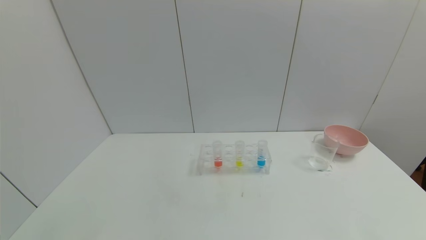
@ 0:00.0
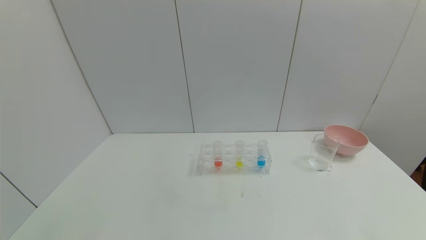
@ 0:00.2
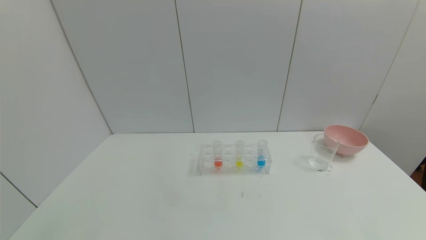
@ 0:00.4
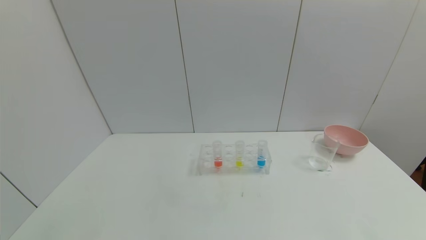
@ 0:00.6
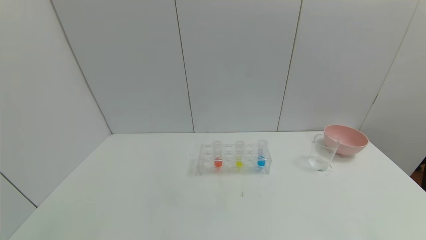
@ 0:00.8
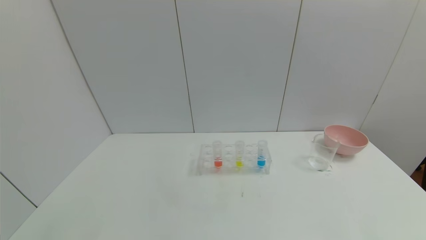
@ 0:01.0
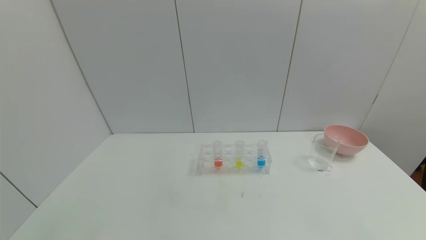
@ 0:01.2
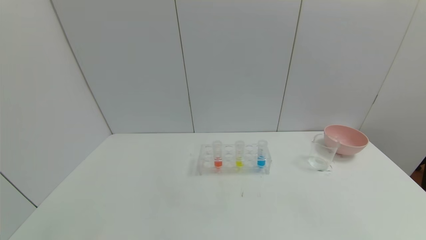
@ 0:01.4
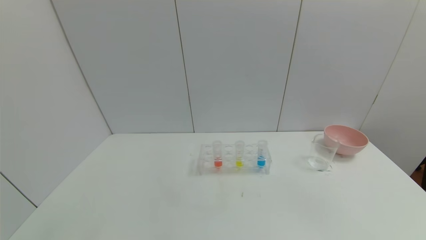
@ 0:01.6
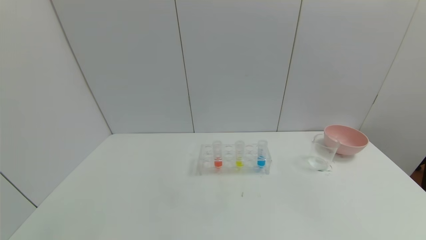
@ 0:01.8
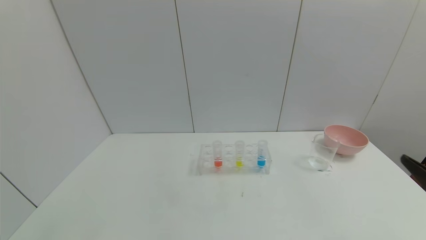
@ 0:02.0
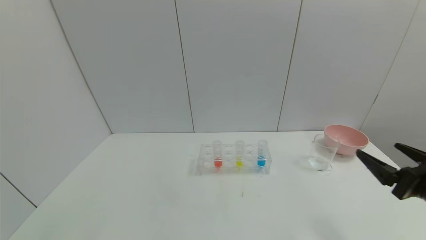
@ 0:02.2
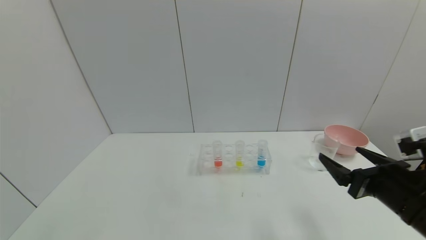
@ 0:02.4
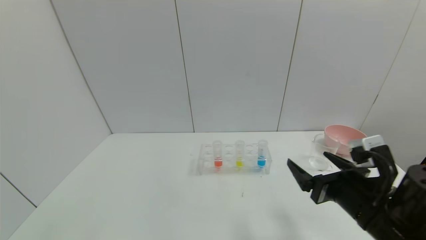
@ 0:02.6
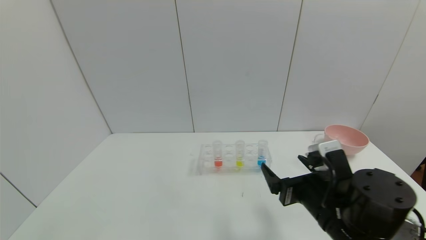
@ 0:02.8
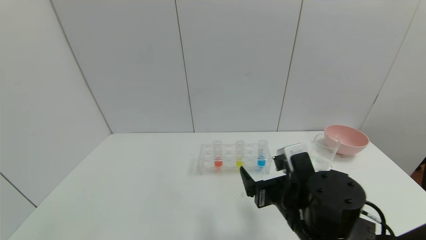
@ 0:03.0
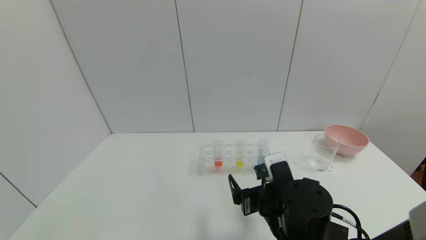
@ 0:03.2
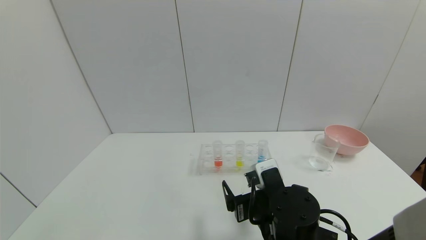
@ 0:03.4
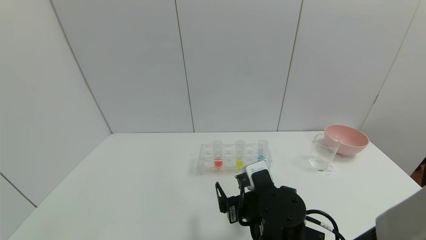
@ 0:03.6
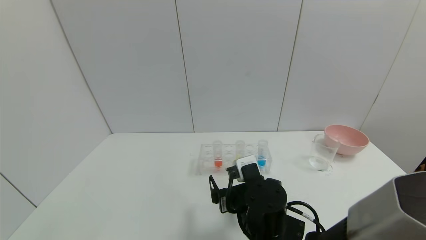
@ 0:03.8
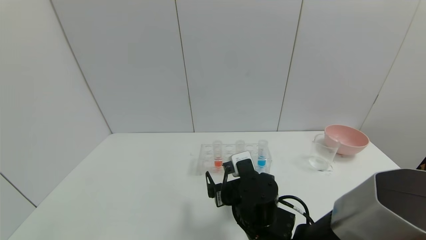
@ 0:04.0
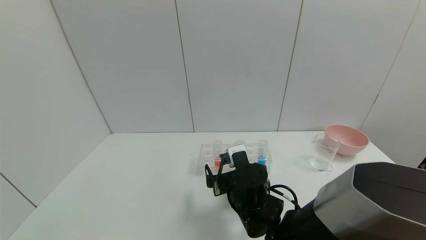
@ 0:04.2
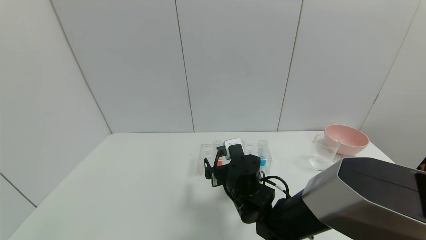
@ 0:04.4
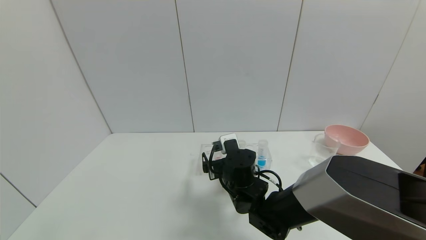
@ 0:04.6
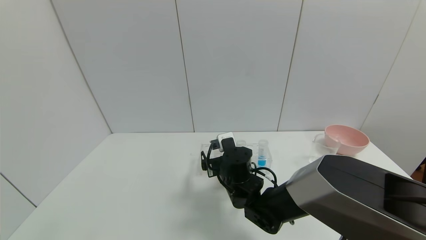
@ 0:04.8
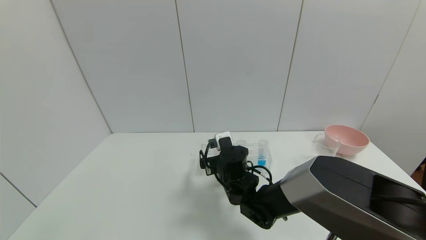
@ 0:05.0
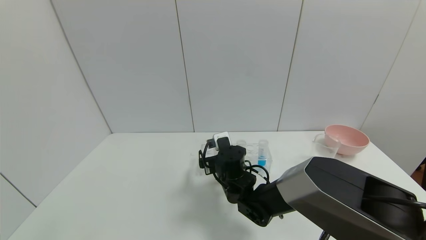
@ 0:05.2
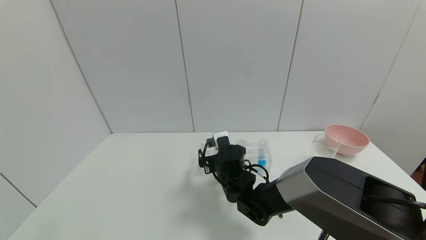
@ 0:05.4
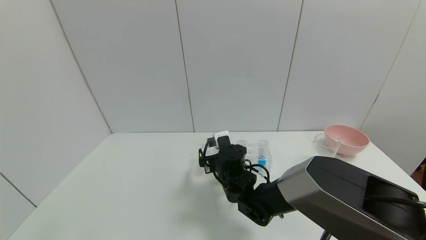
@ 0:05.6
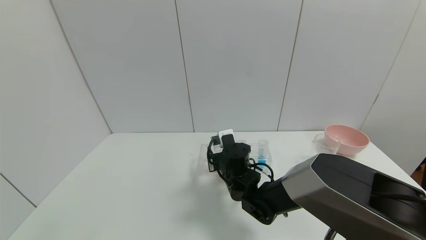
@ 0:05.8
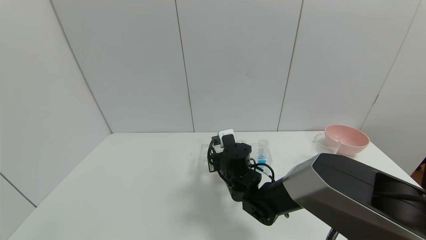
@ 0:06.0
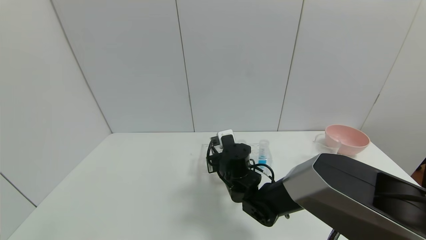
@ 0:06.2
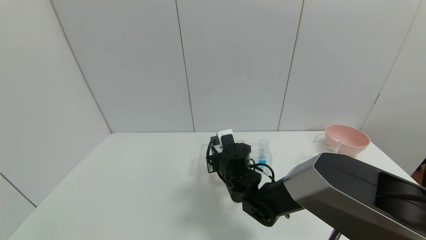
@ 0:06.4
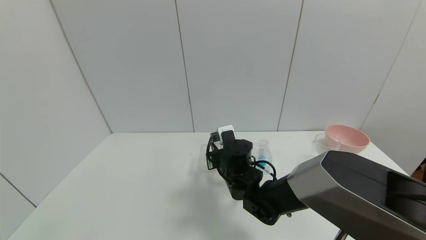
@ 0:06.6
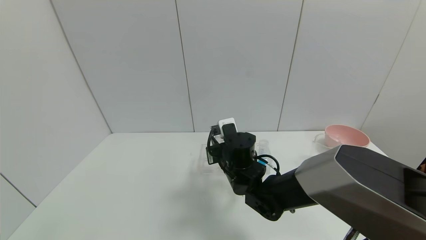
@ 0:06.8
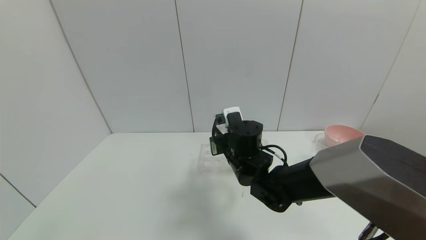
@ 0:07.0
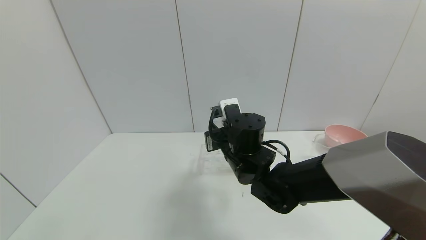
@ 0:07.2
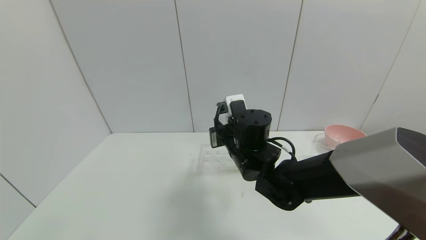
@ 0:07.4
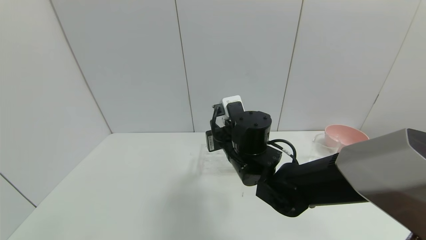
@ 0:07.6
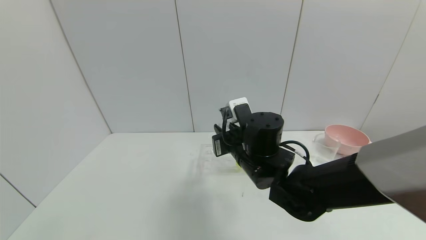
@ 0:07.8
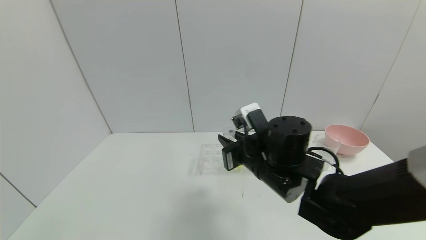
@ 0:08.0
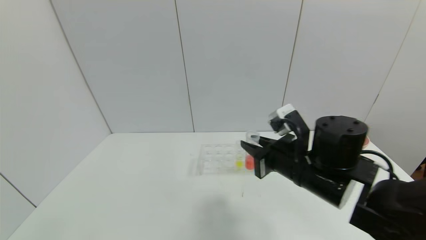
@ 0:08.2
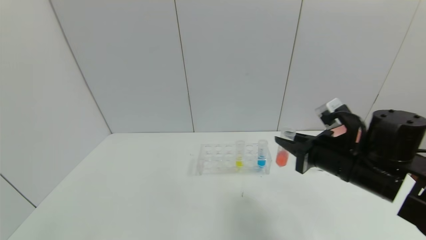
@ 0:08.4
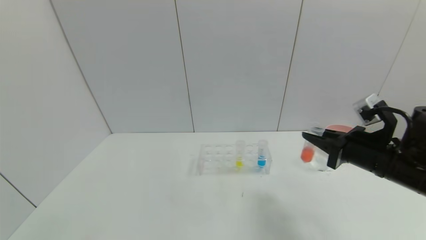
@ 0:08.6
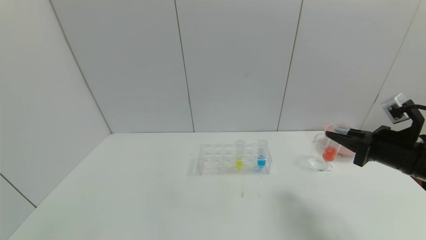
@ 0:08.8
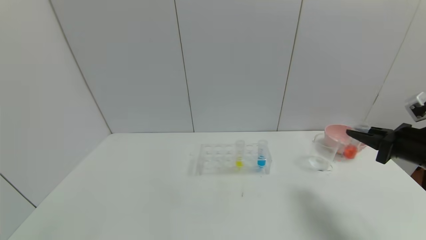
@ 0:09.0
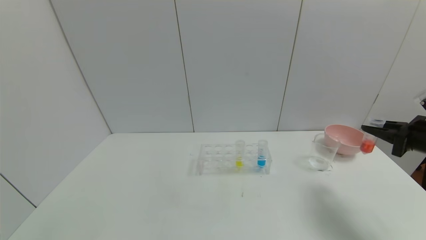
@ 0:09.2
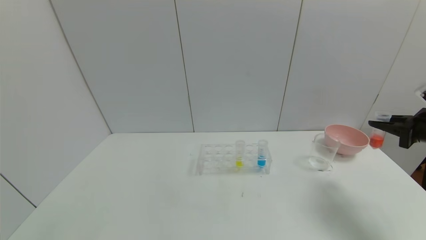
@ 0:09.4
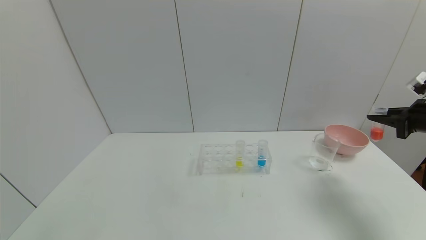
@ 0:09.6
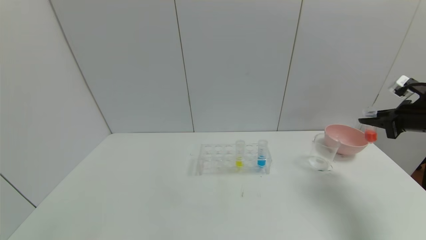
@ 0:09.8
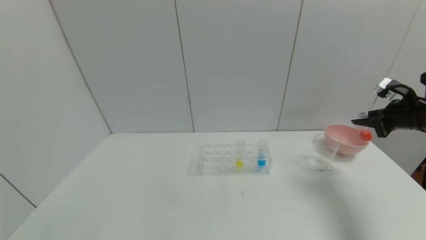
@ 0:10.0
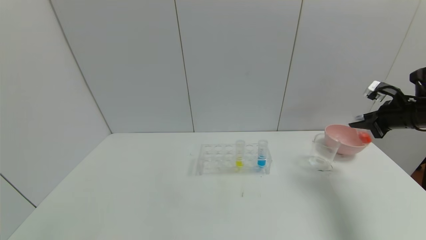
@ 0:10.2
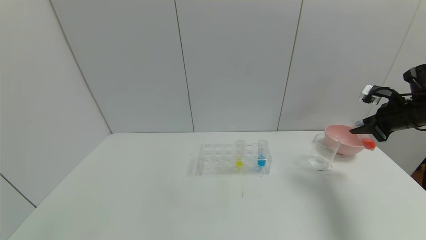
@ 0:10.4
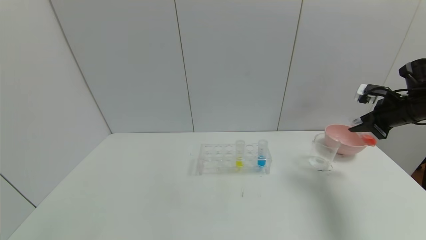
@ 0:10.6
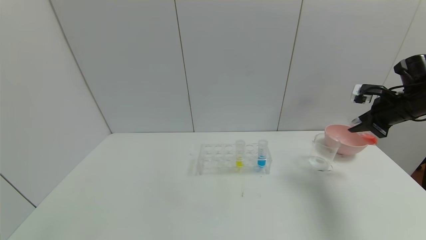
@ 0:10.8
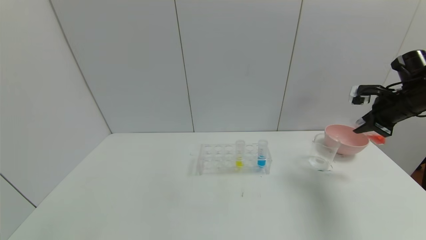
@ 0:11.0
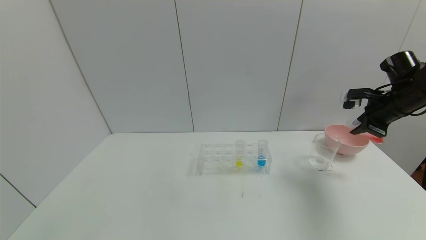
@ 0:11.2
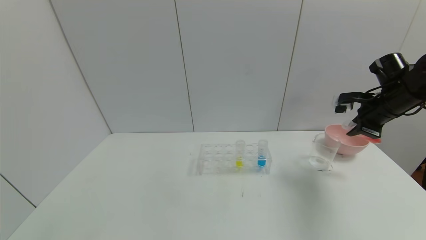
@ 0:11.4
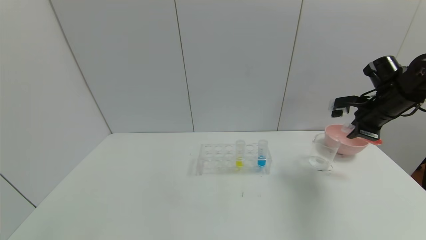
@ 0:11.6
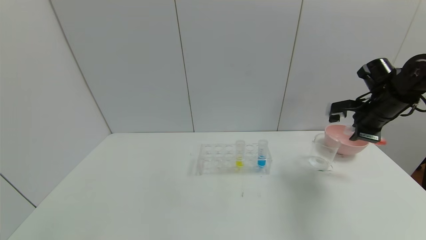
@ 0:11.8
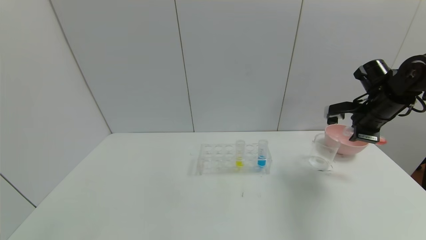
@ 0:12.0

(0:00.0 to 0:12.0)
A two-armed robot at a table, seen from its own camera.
Task of the whole recording: pick up the test tube with red pigment and the test tube with blue pigment by grippers and pour them into the container.
Step, 0:00.0 - 0:09.8: Pick up the test tube containing the red reagent with right gripper.
0:01.6 - 0:03.0: The right gripper heads to the left and forward, covering approximately 30 cm.
0:03.0 - 0:04.4: The right gripper heads forward, to the left and downward, covering roughly 15 cm.
0:04.4 - 0:06.0: The right gripper shifts by about 5 cm, and closes.
0:06.0 - 0:07.6: The right gripper is displaced upward by about 10 cm.
0:07.6 - 0:09.0: The right gripper shifts approximately 35 cm to the right.
0:09.0 - 0:10.4: The right gripper goes about 10 cm forward.
0:10.4 - 0:12.0: The right gripper goes approximately 5 cm to the left.

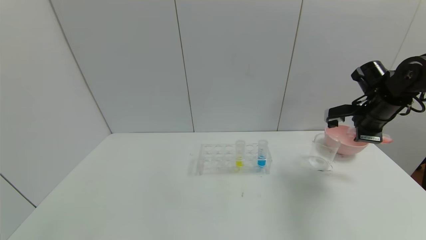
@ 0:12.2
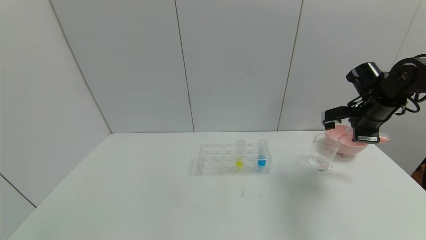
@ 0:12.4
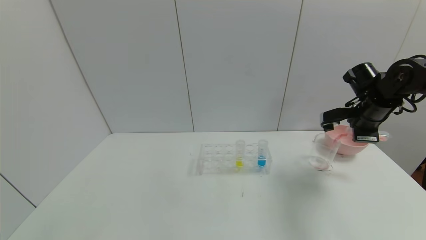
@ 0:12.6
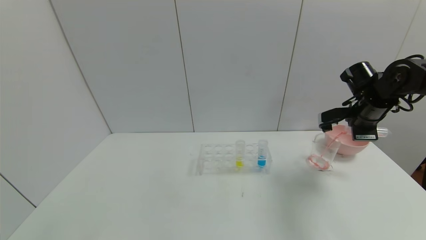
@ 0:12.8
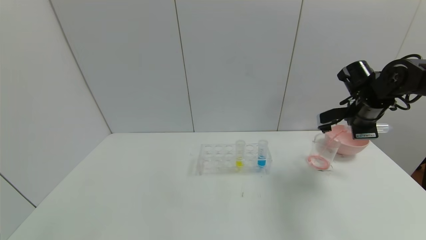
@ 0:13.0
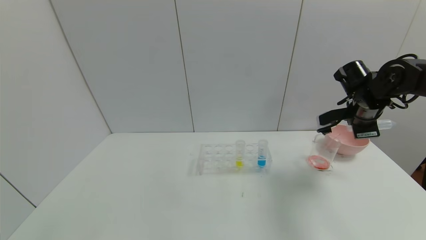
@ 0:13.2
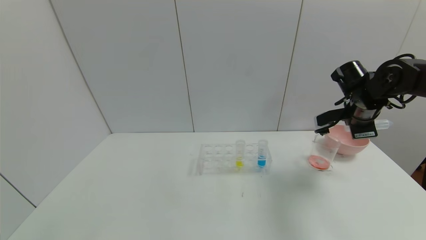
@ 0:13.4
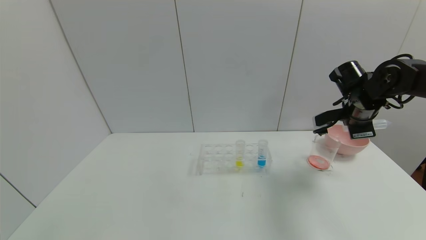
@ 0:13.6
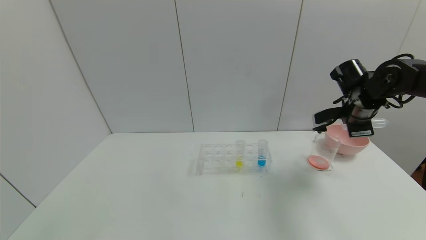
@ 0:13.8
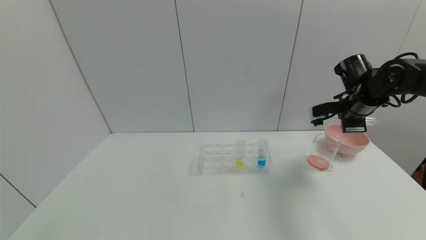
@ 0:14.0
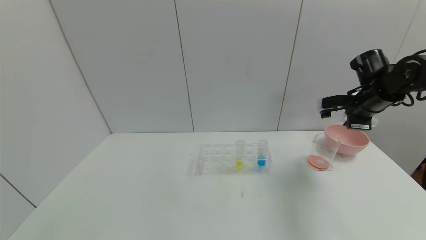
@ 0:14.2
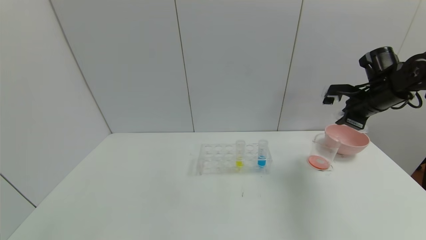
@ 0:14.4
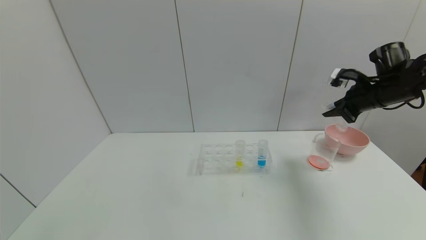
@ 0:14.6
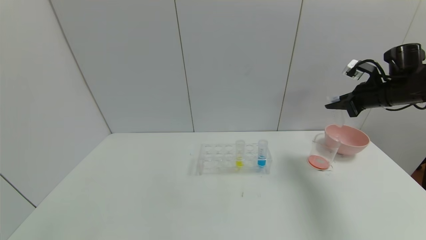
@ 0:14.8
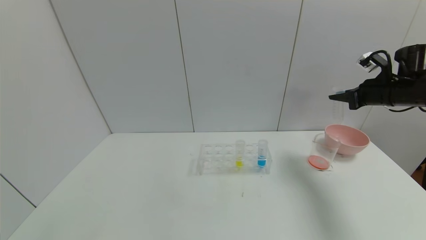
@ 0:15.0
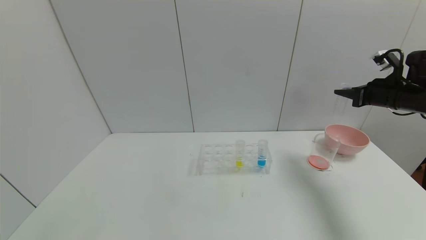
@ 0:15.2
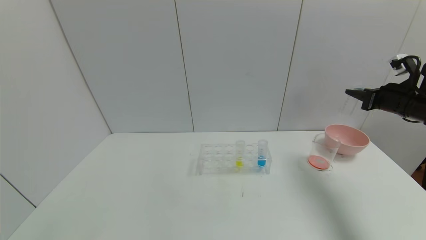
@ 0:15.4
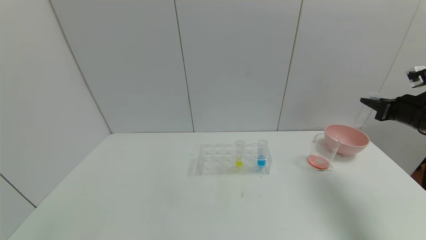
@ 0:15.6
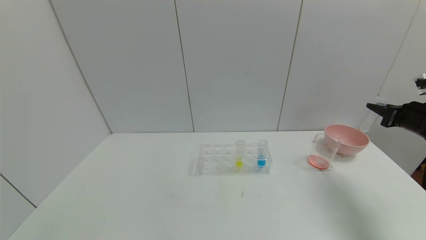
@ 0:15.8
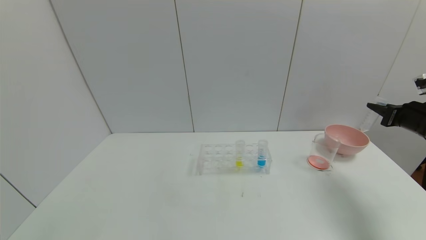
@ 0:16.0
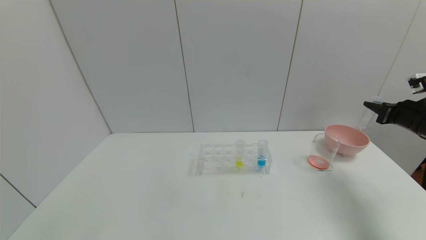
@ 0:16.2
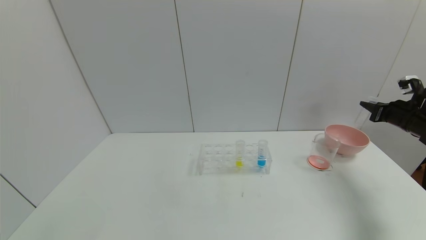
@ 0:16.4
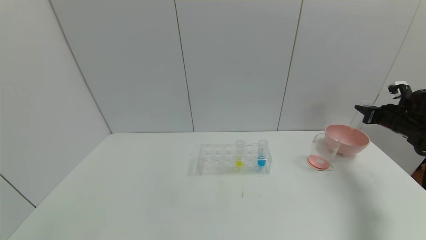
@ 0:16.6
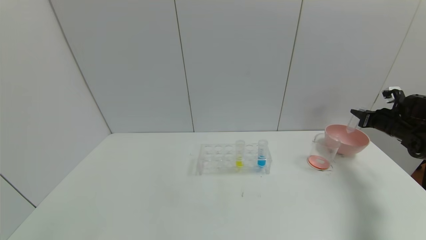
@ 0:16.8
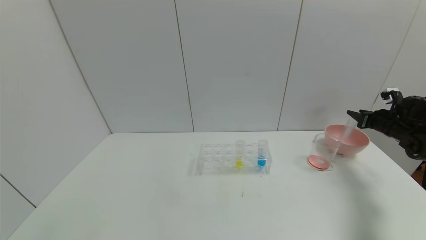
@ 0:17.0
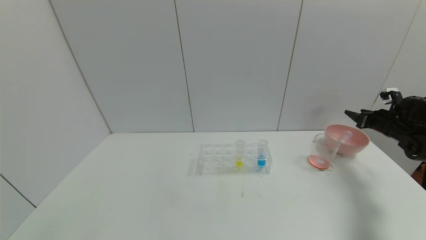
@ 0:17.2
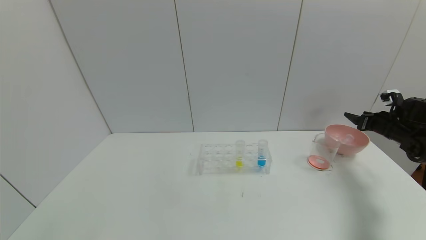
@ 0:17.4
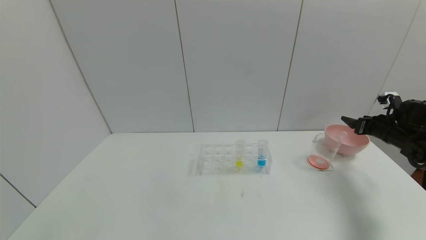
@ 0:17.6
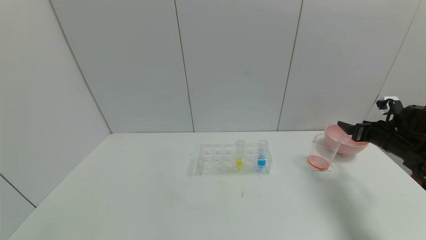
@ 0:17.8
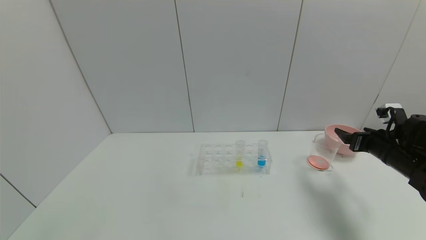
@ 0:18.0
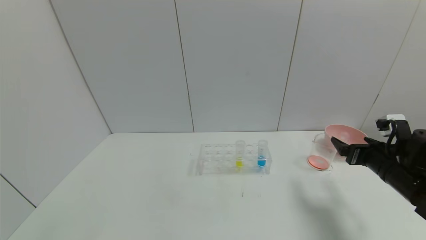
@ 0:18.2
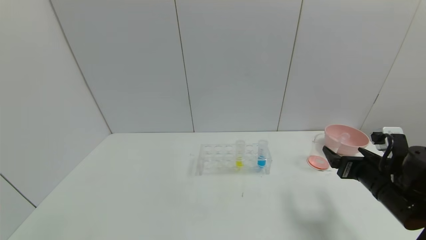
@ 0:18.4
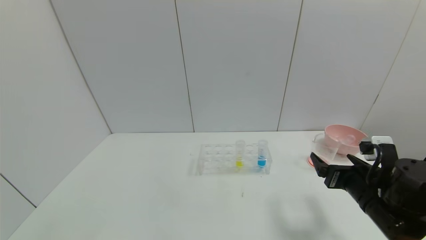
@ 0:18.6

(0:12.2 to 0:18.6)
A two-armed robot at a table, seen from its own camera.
Task of the whole recording: pick up the test tube with red pigment and the test tube with blue pigment by grippers and pour them into the container.
Step, 0:12.2 - 0:15.0: Pour the red reagent into the graduated cylinder with right gripper.
Step, 0:15.2 - 0:17.8: Place the test tube into the bowl with right gripper.
0:12.2 - 0:13.8: There are only small adjustments of the grippers.
0:13.8 - 0:15.4: The right gripper travels to the right by some 10 cm.
0:15.4 - 0:17.0: The right gripper shifts roughly 10 cm downward, forward and to the right, and opens up.
0:17.0 - 0:18.6: The right gripper shifts some 30 cm to the left and backward, and opens its fingers.
